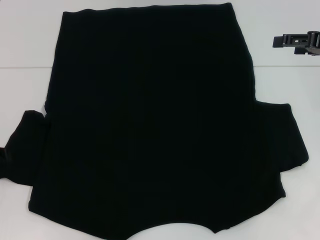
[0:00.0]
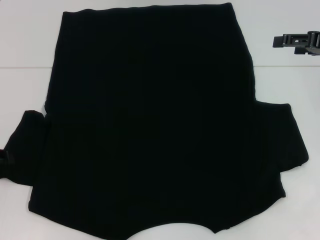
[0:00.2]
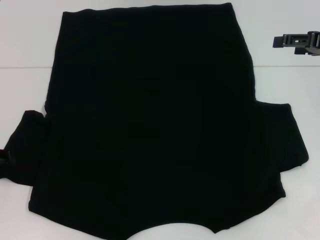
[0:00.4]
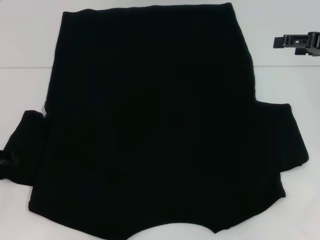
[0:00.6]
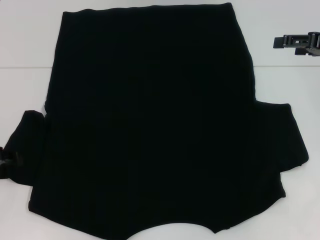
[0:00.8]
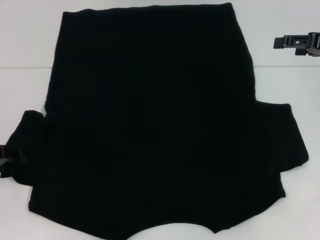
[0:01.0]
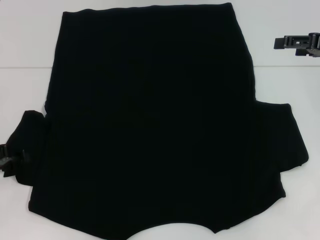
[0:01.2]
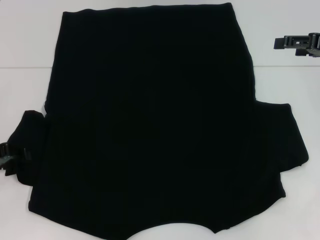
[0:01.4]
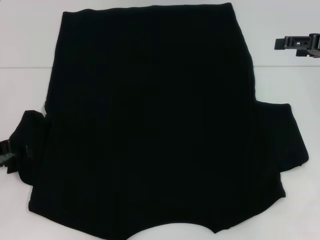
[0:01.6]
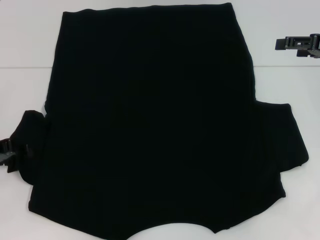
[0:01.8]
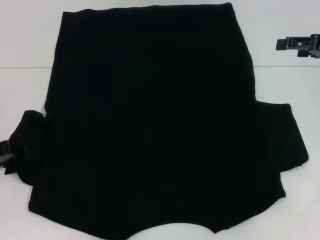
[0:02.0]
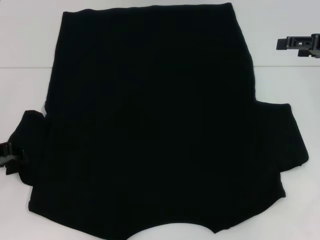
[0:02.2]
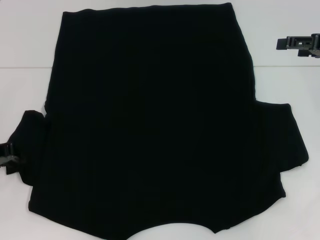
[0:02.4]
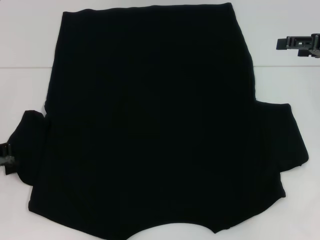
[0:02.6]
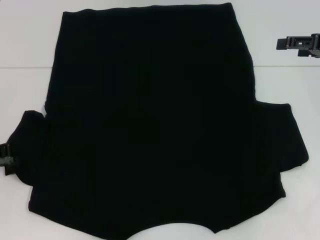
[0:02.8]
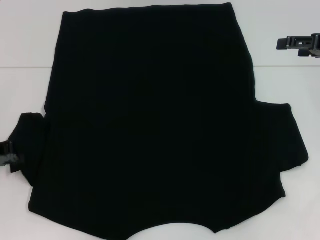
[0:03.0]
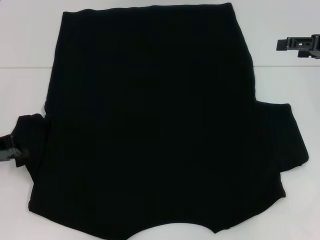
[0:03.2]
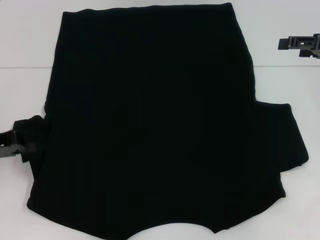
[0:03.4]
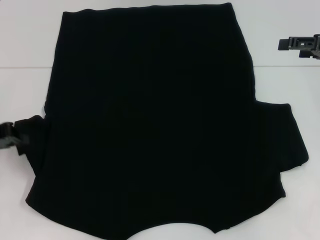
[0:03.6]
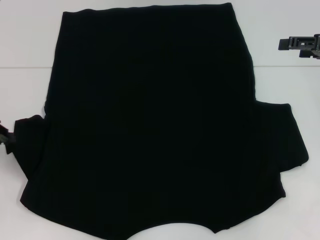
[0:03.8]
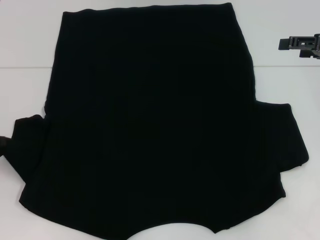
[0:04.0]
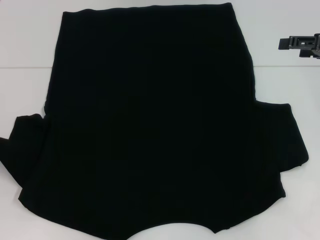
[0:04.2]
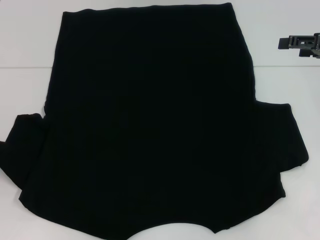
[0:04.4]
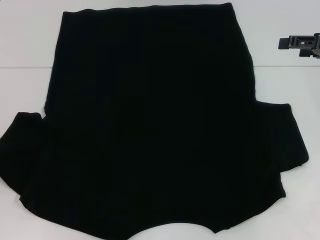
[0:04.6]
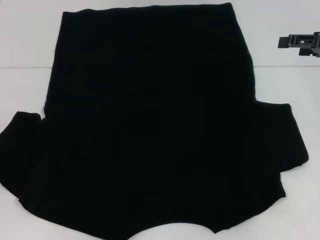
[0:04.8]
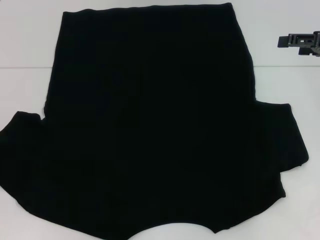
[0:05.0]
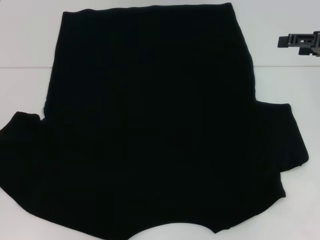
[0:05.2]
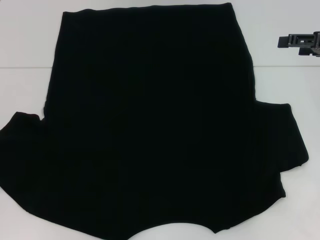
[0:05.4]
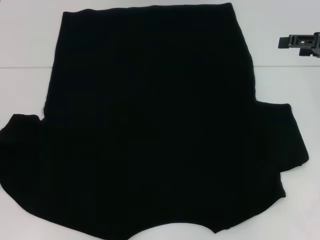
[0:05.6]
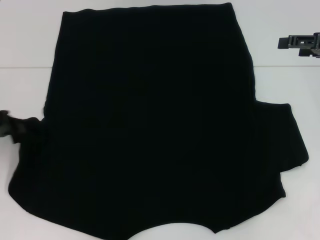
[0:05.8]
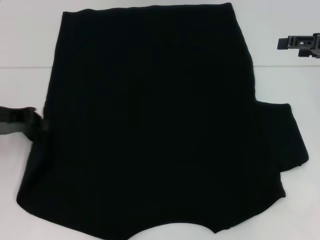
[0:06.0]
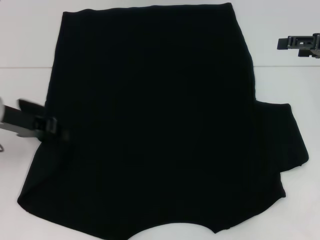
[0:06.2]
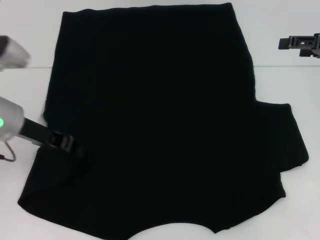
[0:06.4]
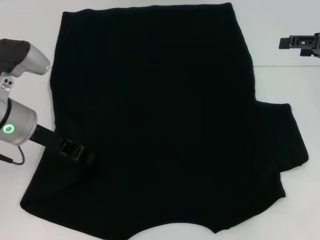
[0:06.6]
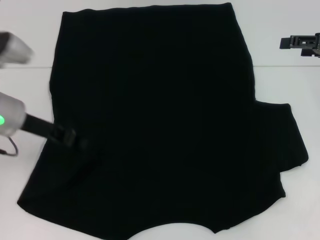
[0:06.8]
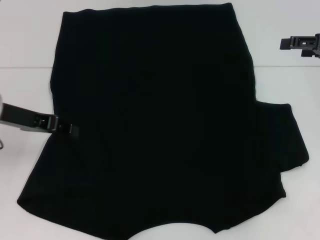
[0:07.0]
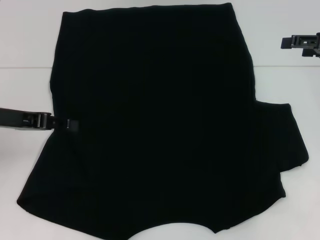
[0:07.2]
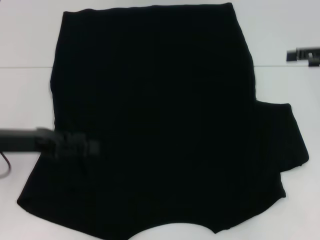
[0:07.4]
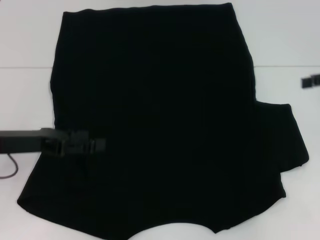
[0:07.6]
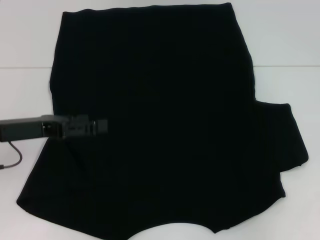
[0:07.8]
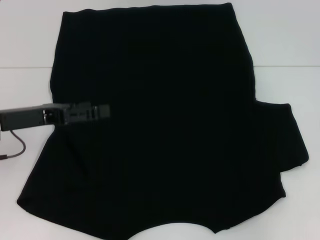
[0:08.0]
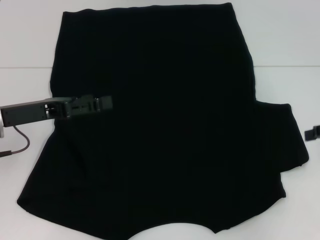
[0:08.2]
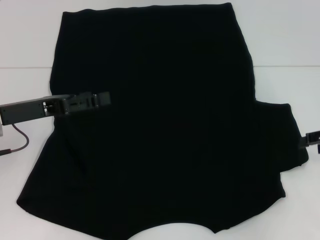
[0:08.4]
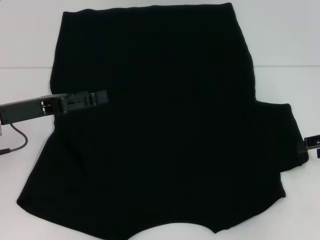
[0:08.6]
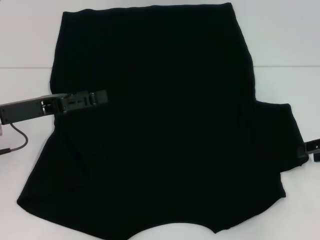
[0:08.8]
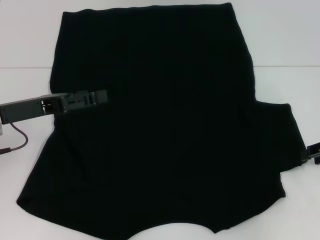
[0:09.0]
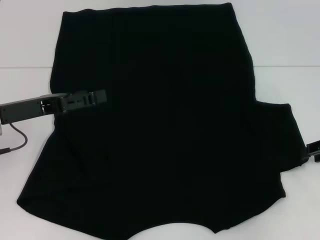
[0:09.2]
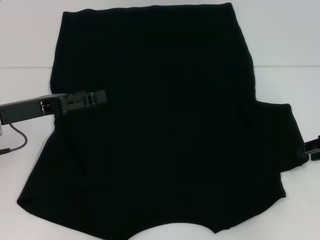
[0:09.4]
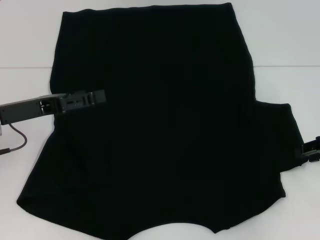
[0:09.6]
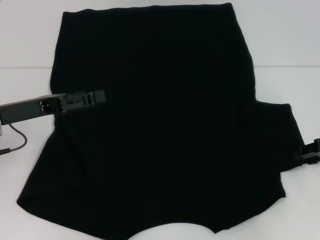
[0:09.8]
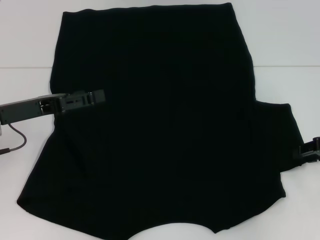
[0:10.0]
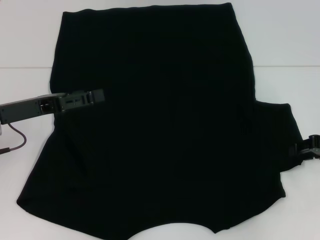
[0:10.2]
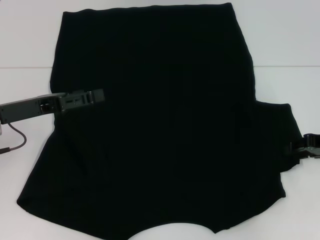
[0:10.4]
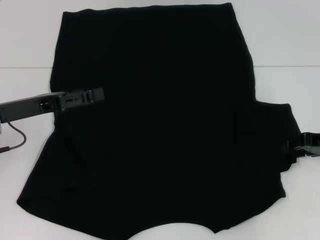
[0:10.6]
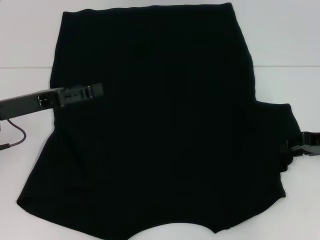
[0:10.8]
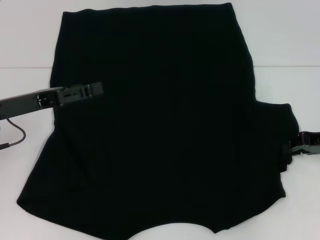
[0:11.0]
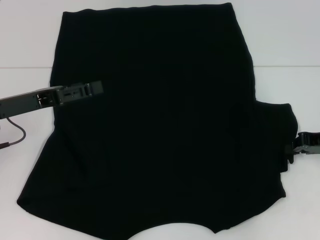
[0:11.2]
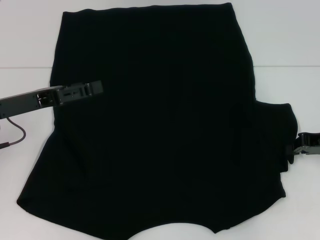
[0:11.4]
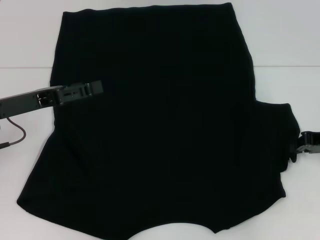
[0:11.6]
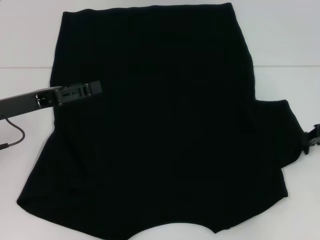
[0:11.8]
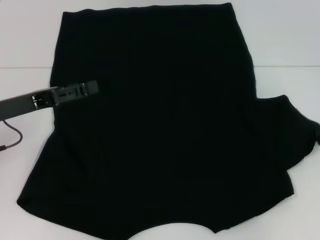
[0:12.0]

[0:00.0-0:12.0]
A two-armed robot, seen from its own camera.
Step, 0:00.0 to 0:07.0: Fold the bottom left sleeve with your left hand.
0:00.0 to 0:01.6: The grippers move only a little.
0:03.0 to 0:04.4: The grippers make only small movements.
0:04.4 to 0:06.0: The left gripper moves to the right, about 5 cm.
0:06.0 to 0:07.6: The left gripper shifts by about 5 cm, and opens its fingers.
0:07.6 to 0:09.0: The right gripper is displaced downward by about 10 cm. The left gripper opens its fingers.
0:09.0 to 0:10.4: The grippers move only a little.
0:10.4 to 0:12.0: The right gripper closes its fingers.

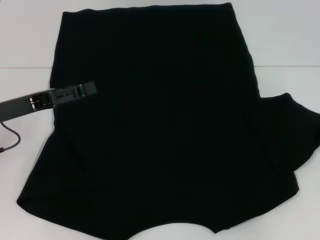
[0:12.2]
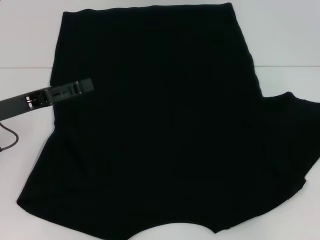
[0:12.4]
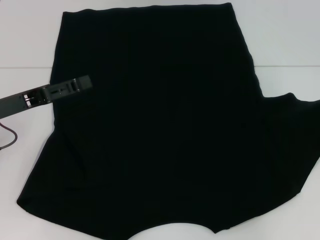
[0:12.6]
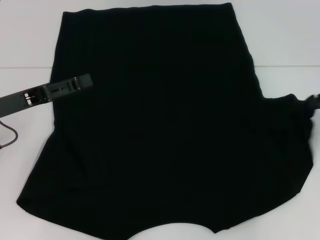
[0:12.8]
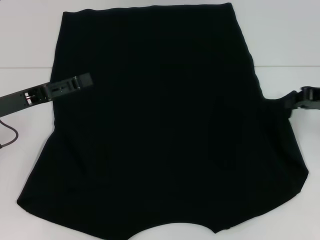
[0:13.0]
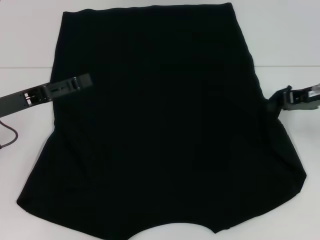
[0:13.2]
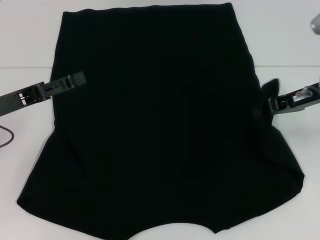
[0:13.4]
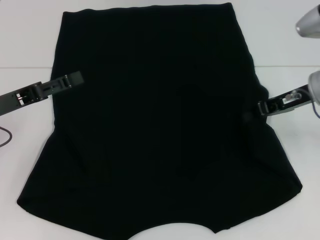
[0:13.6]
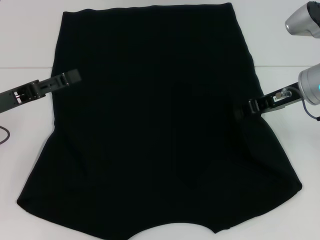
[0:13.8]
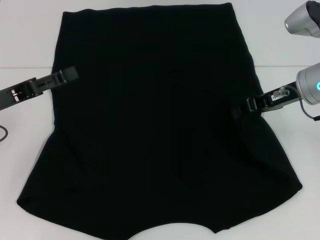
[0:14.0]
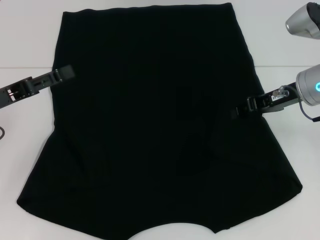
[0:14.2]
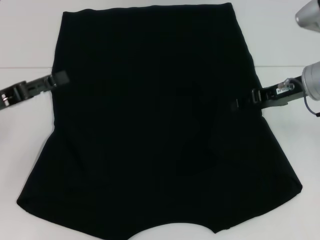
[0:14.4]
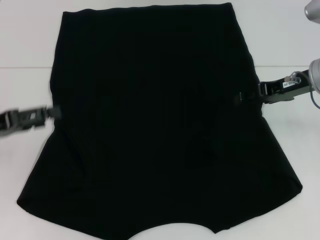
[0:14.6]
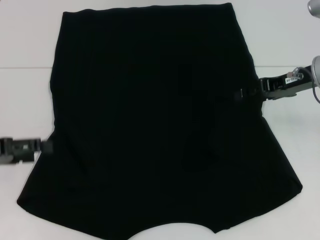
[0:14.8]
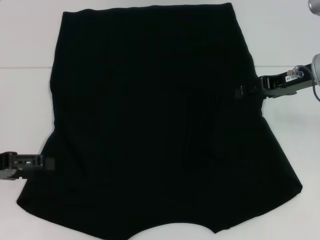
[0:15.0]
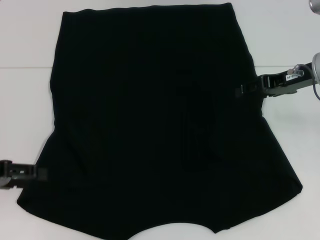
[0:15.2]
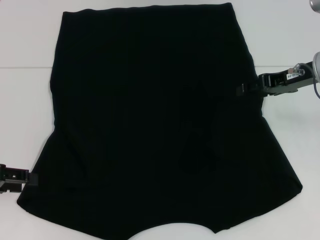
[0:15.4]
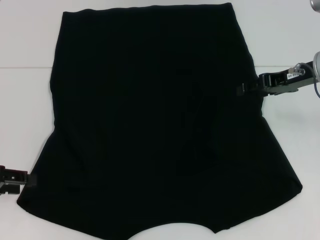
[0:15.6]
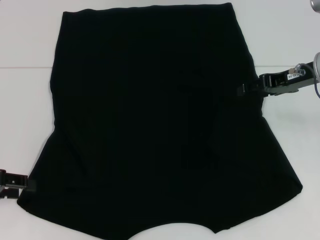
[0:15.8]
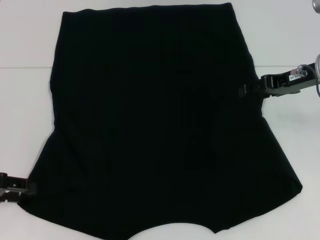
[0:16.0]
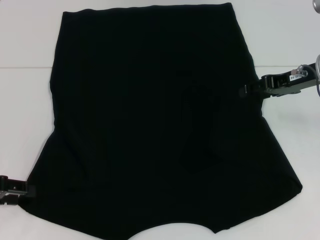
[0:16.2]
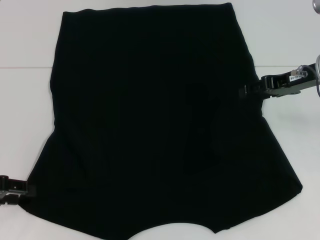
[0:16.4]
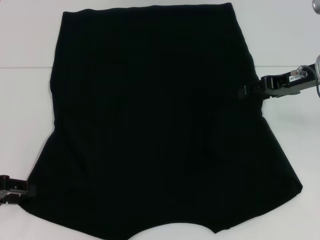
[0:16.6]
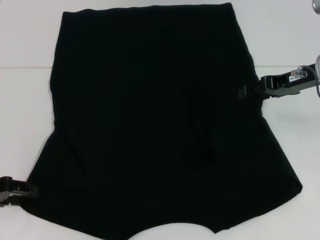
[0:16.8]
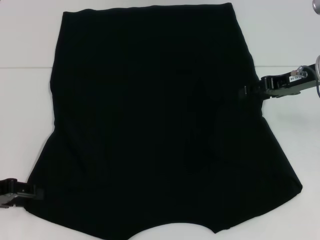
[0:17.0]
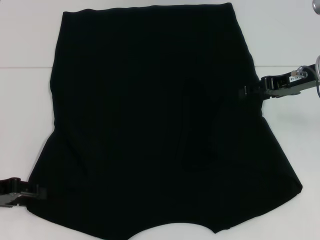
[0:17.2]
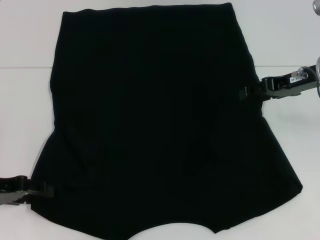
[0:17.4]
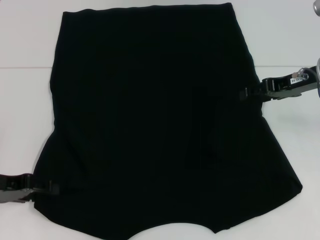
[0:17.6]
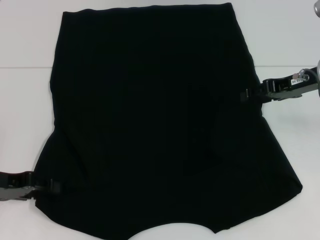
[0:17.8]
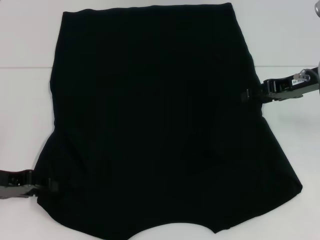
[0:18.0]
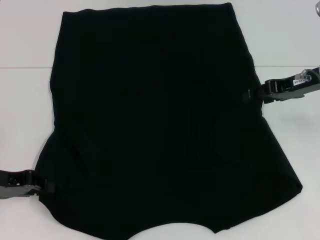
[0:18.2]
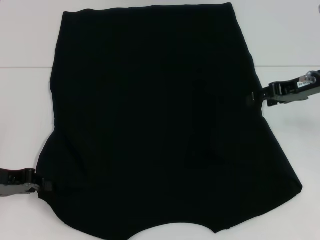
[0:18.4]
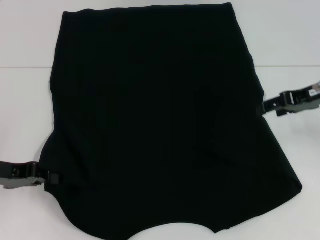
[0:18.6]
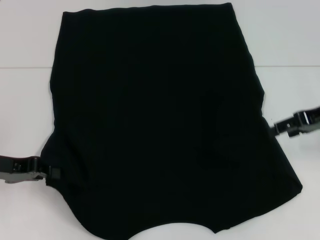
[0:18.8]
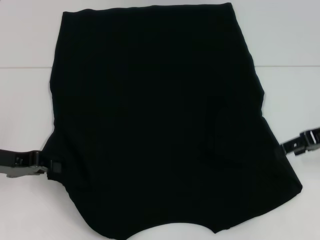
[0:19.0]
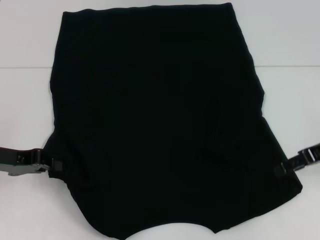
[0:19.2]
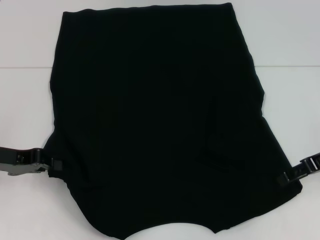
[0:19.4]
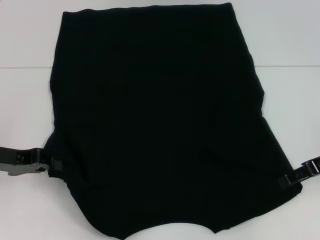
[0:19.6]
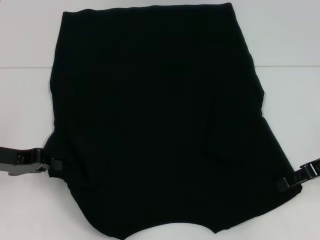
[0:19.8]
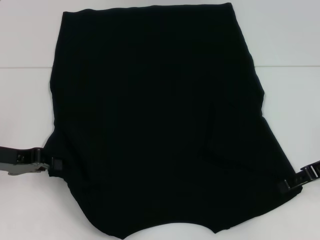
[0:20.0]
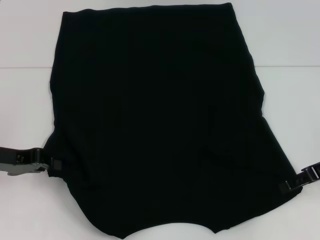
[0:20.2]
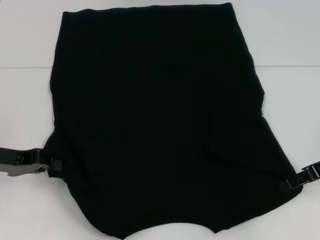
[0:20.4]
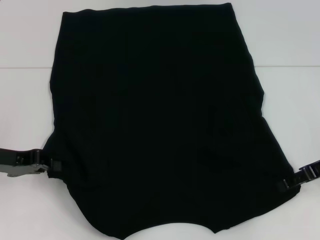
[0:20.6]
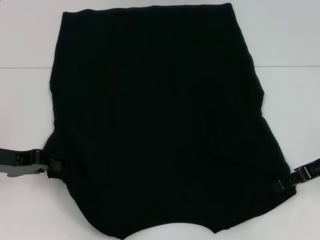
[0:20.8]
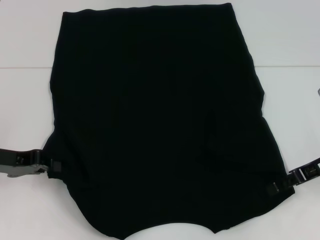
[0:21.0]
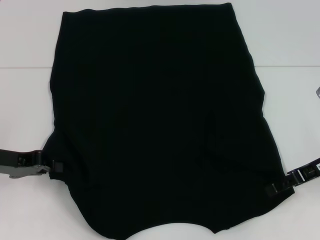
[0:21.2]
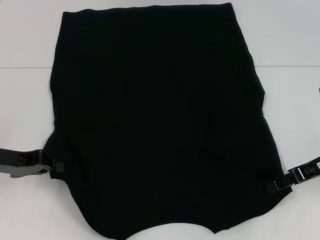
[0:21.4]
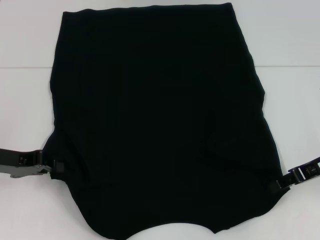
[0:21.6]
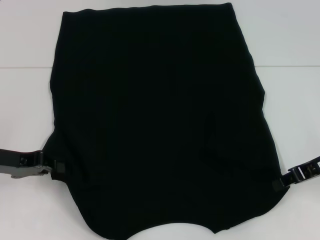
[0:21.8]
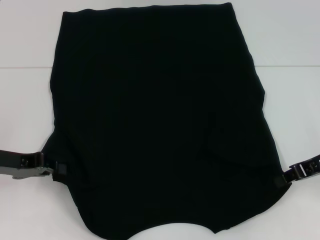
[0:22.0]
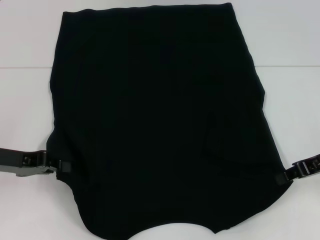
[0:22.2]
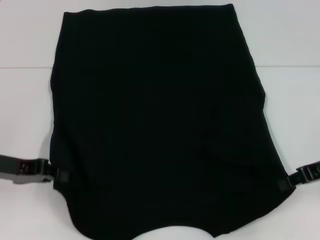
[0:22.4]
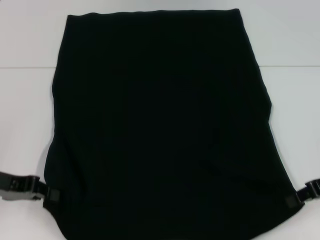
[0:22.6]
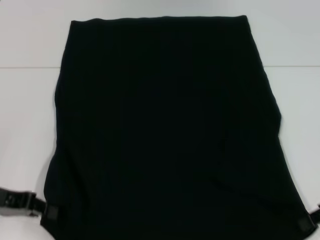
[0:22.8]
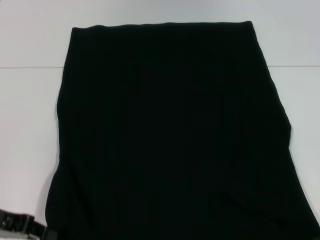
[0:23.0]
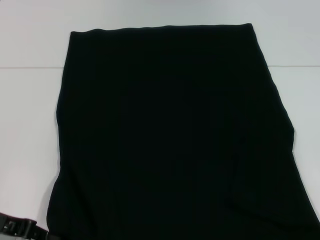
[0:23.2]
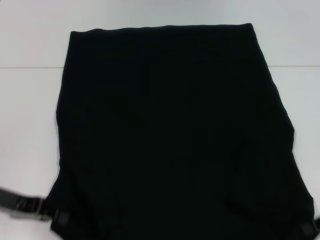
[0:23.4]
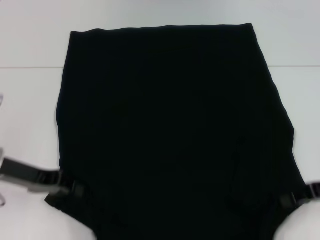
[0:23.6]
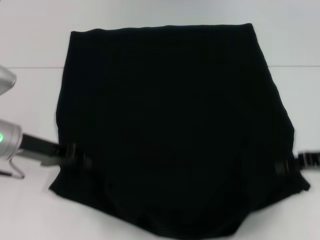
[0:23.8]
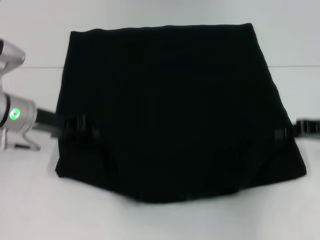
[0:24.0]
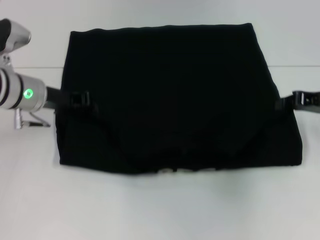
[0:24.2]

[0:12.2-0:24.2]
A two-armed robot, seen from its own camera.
Step, 0:12.2 to 0:14.2: Fold the bottom right sleeve with your right hand.
Step, 0:14.4 to 0:18.6: Grab the bottom left corner with your left hand.
Step, 0:18.8 to 0:22.0: Grab the bottom right corner with your right hand.
0:12.2 to 0:13.8: The right gripper goes some 15 cm to the left.
0:13.8 to 0:15.2: The left gripper moves approximately 5 cm, while the right gripper opens.
0:15.2 to 0:16.6: The left gripper closes up.
0:16.6 to 0:18.2: The grippers move only a little.
0:18.2 to 0:19.8: The right gripper travels backward by about 5 cm.
0:19.8 to 0:21.2: The grippers make only small movements.
0:21.2 to 0:22.6: The right gripper closes.
0:22.6 to 0:24.2: The left gripper shifts roughly 15 cm forward and to the right. Meanwhile the right gripper moves forward, approximately 5 cm.
